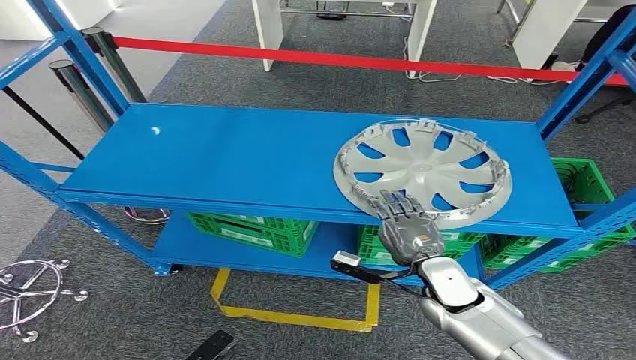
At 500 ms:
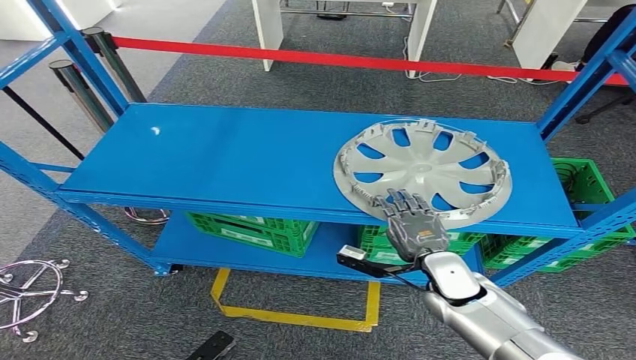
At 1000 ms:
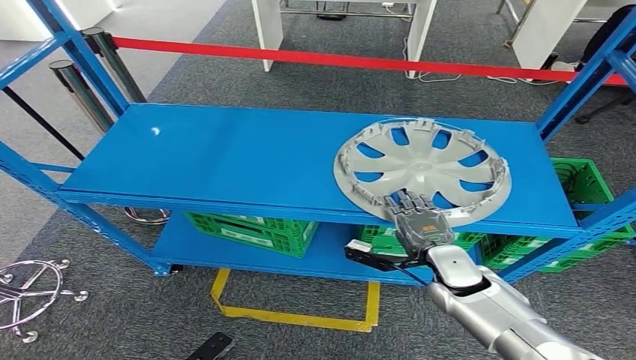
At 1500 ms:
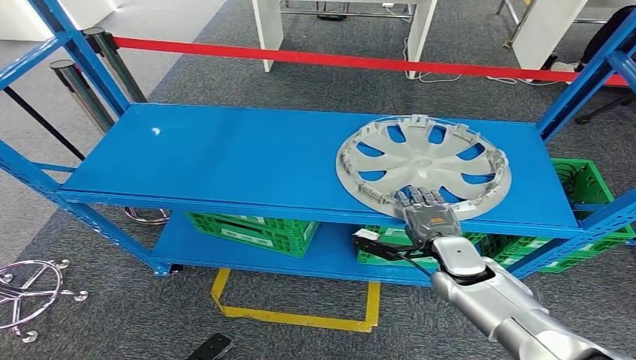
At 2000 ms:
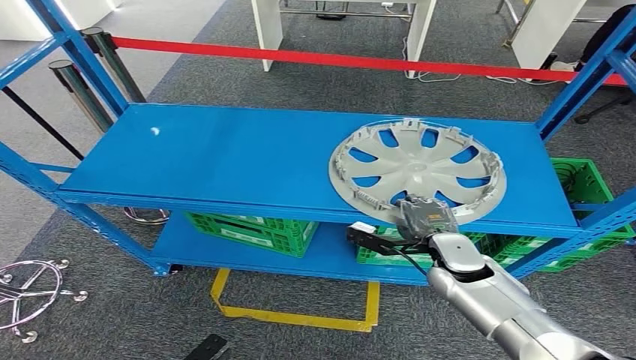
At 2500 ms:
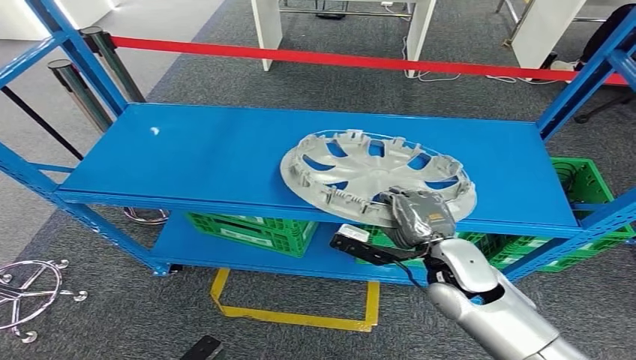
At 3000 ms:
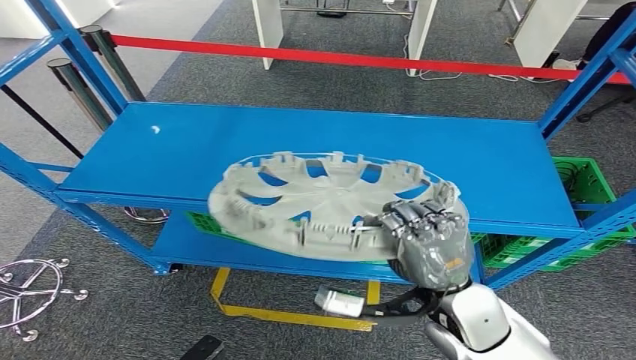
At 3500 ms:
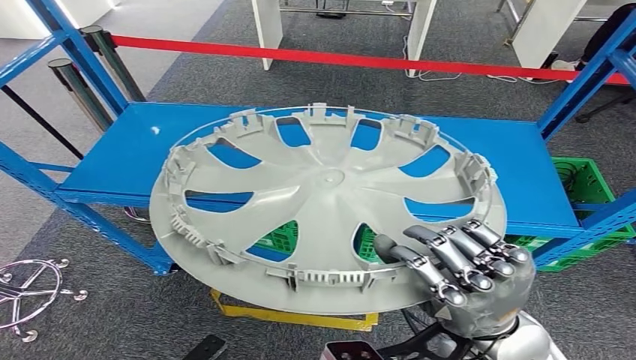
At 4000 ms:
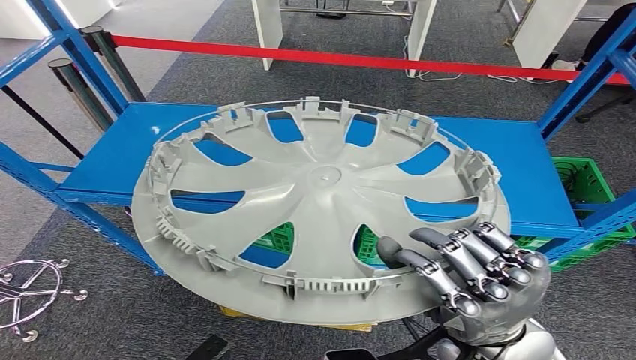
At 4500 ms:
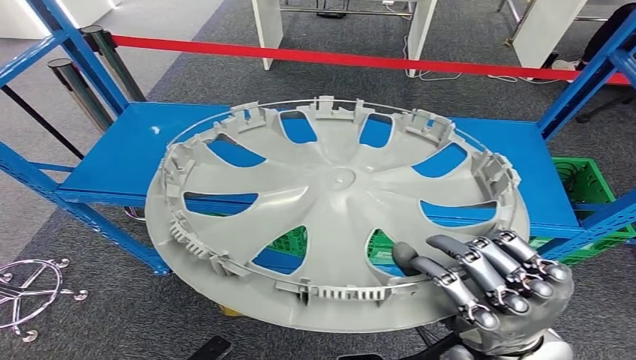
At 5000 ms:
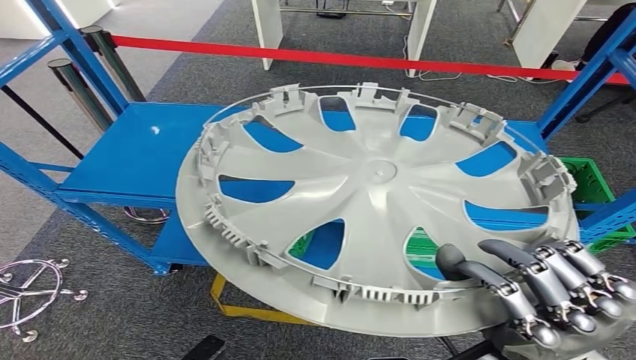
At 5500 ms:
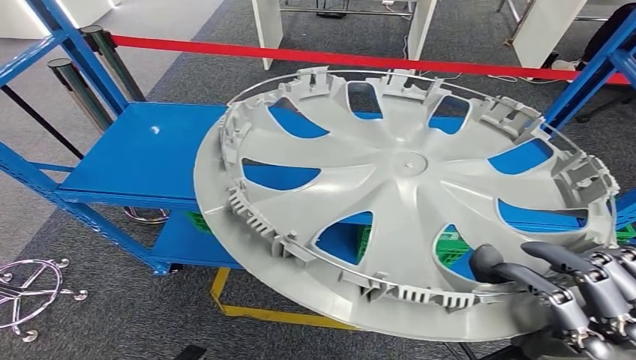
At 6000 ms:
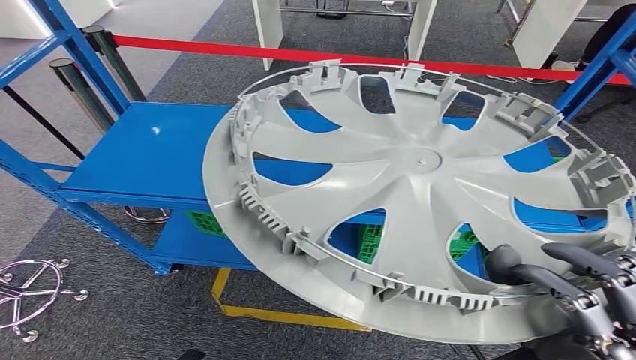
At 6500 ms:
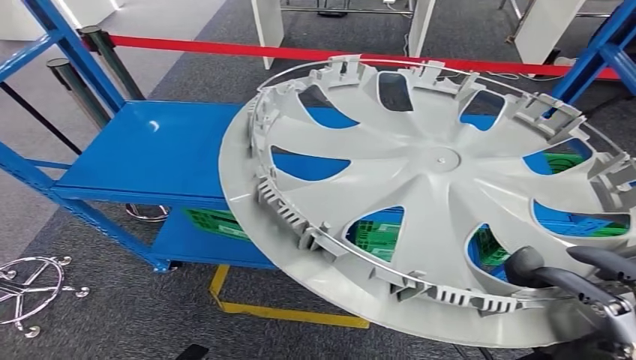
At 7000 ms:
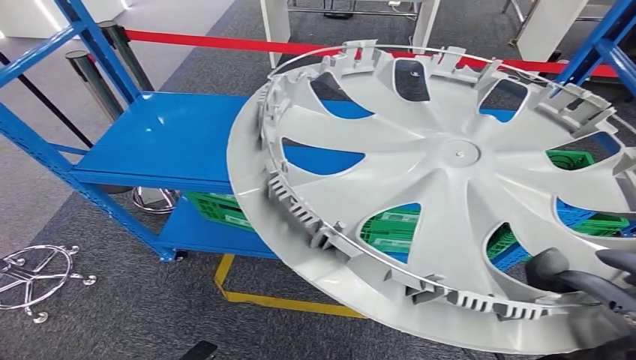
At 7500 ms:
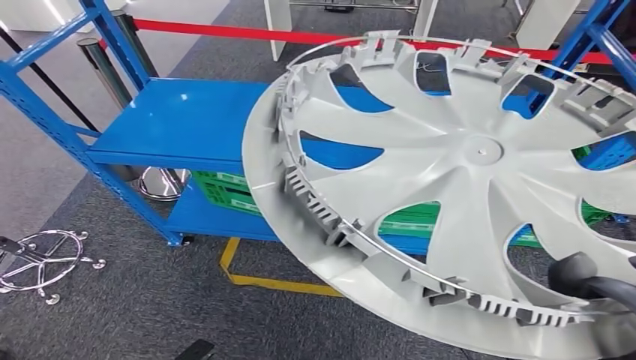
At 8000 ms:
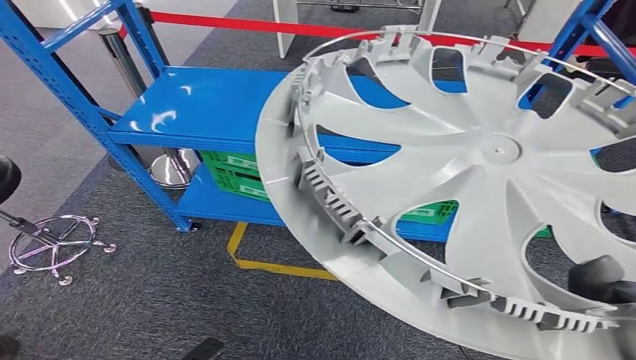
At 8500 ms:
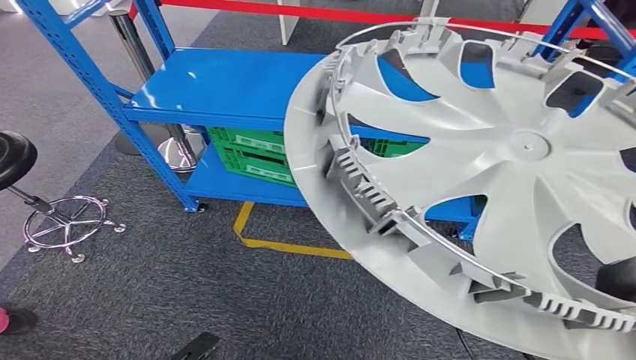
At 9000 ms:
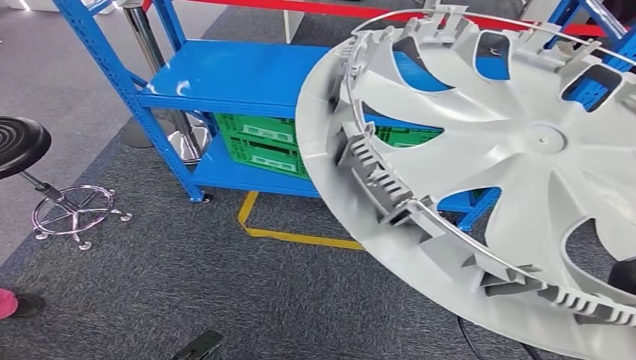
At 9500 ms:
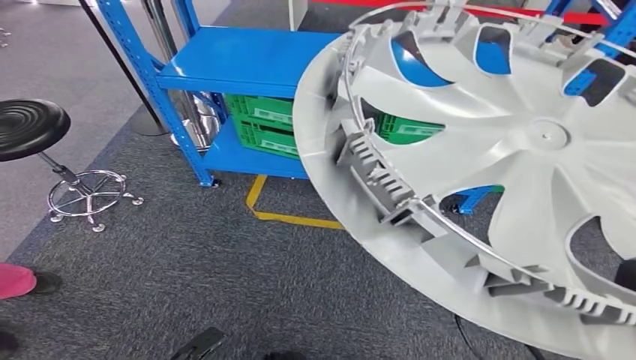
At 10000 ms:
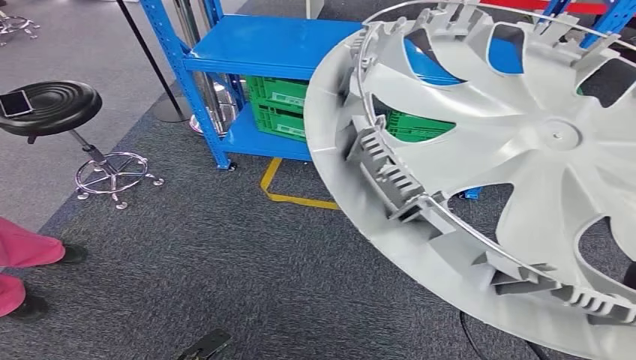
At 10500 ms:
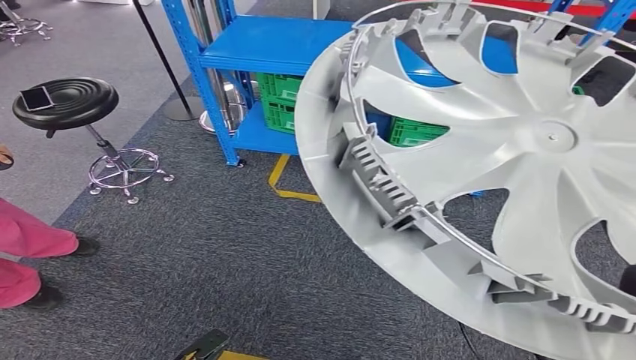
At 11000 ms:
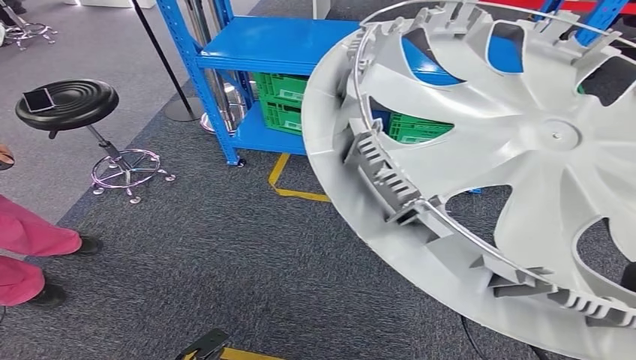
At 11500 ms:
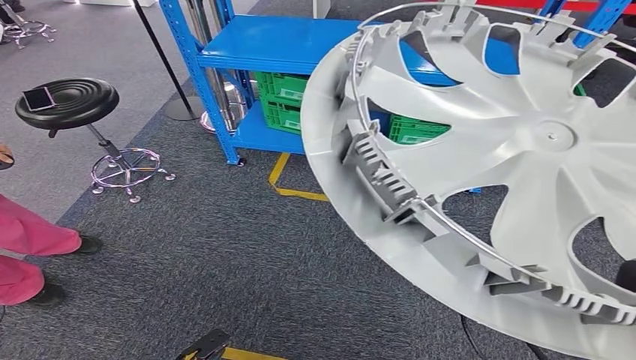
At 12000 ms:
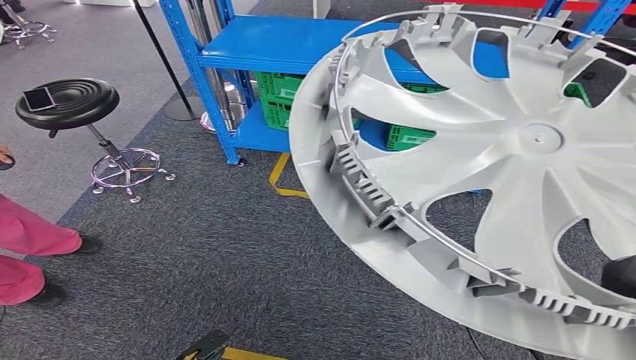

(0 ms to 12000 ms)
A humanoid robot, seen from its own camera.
Step, 0 ms - 5500 ms: Pick up the small component from the shelf.

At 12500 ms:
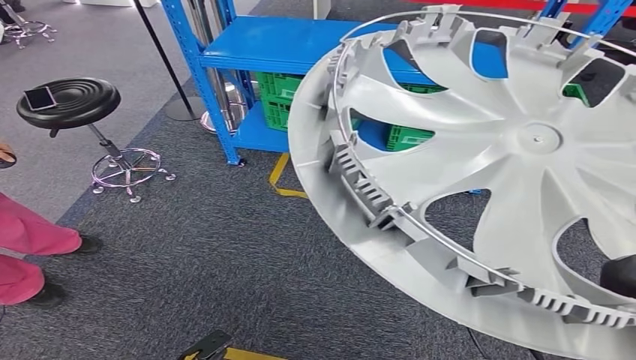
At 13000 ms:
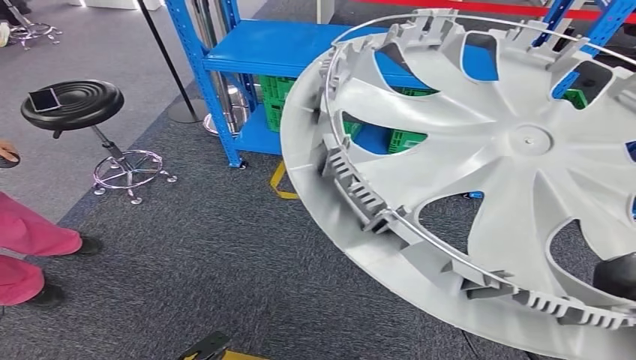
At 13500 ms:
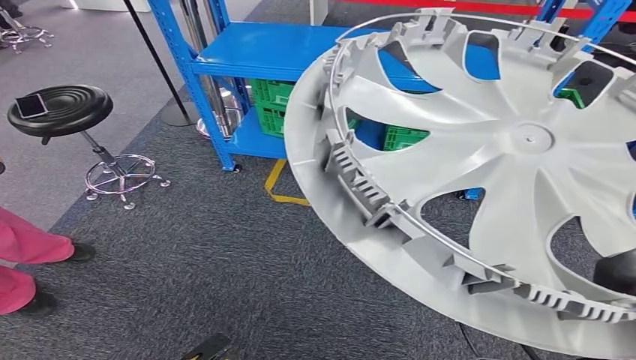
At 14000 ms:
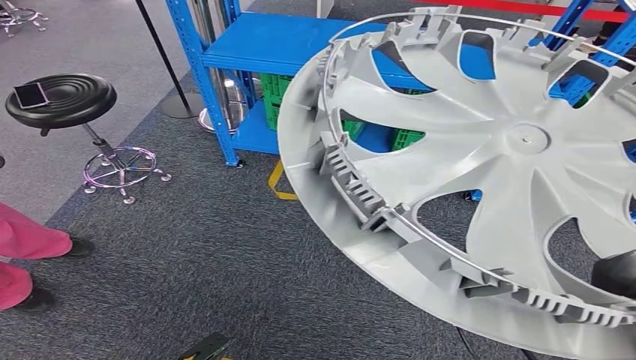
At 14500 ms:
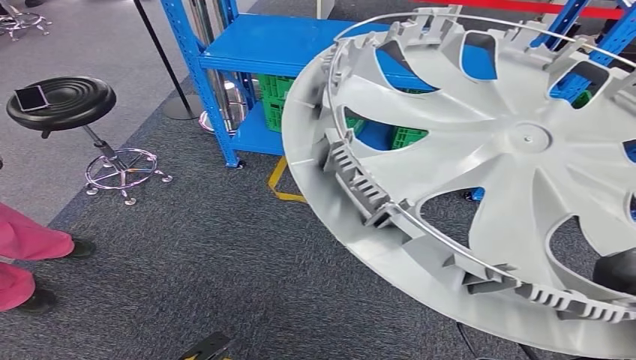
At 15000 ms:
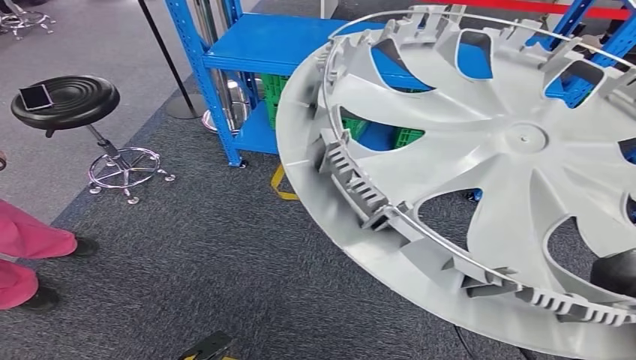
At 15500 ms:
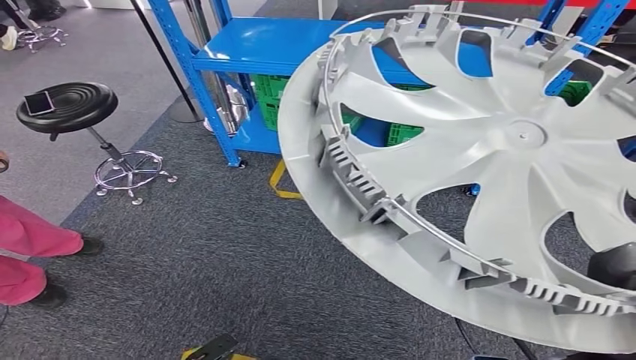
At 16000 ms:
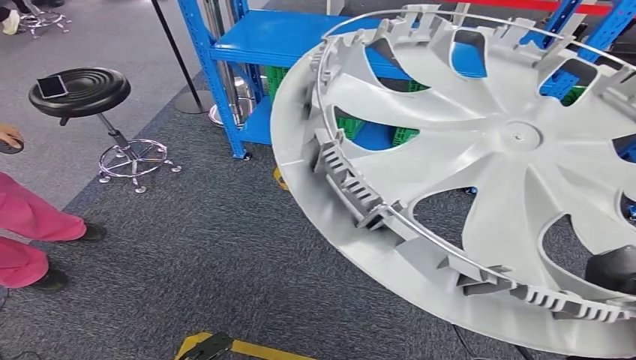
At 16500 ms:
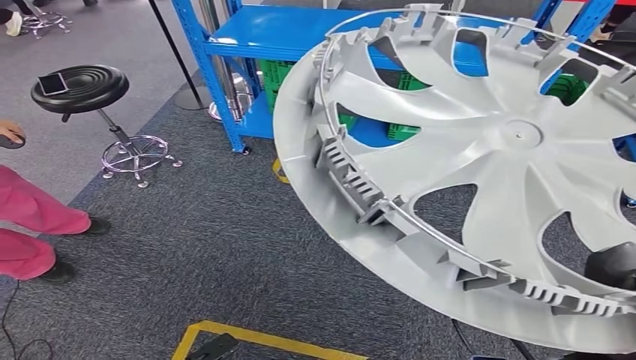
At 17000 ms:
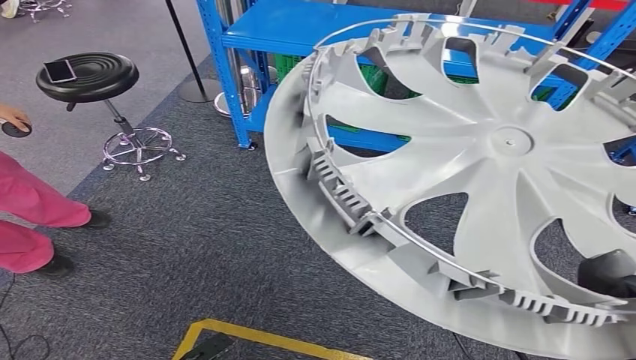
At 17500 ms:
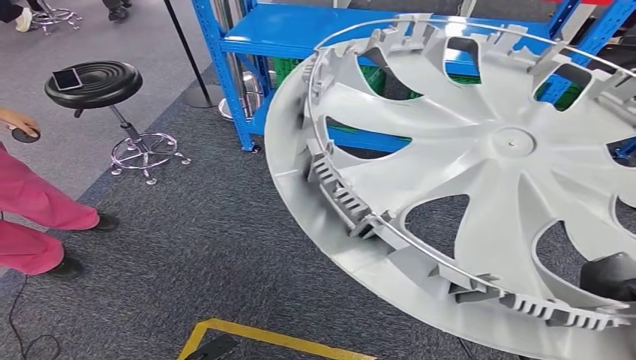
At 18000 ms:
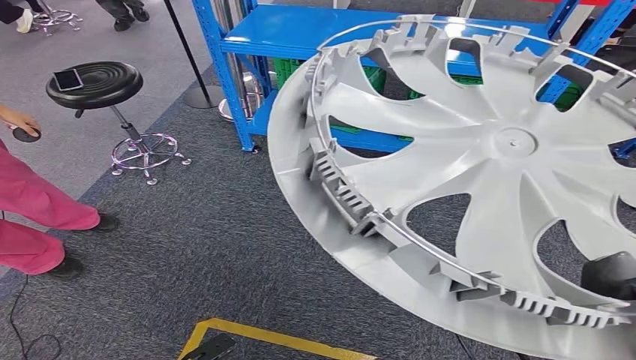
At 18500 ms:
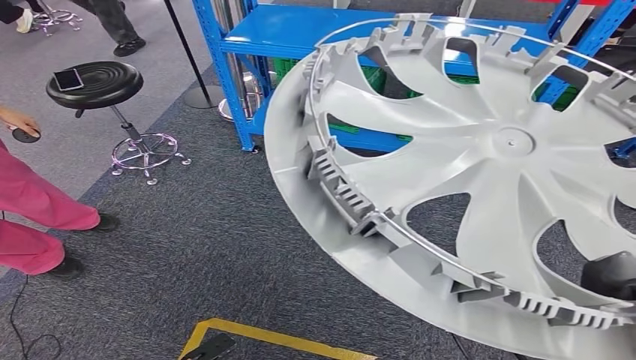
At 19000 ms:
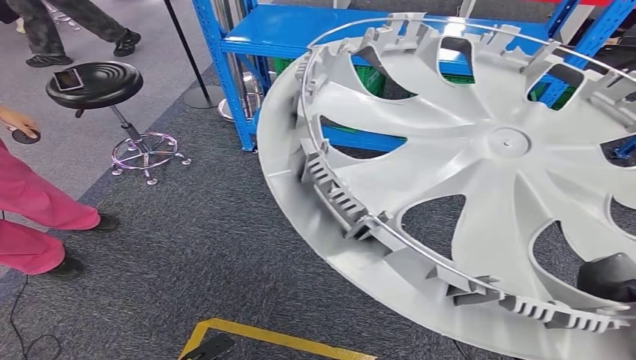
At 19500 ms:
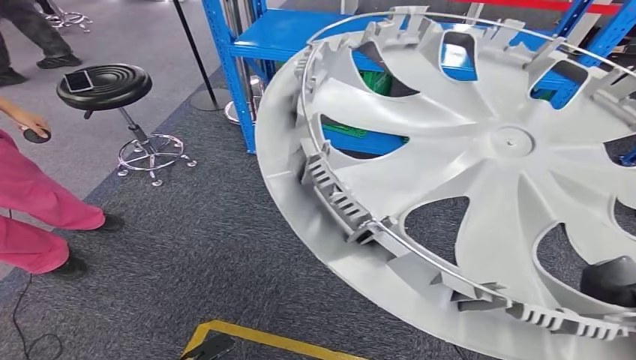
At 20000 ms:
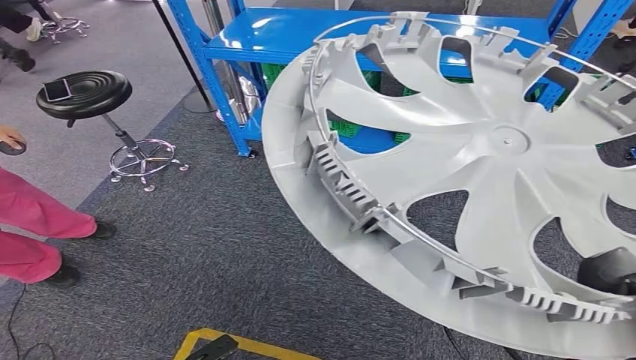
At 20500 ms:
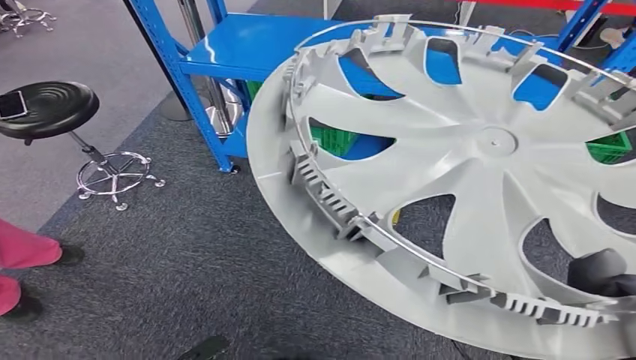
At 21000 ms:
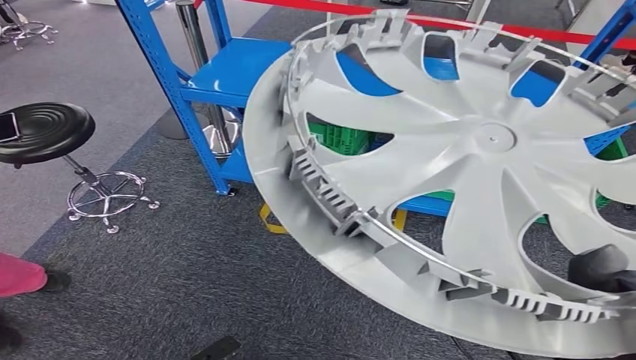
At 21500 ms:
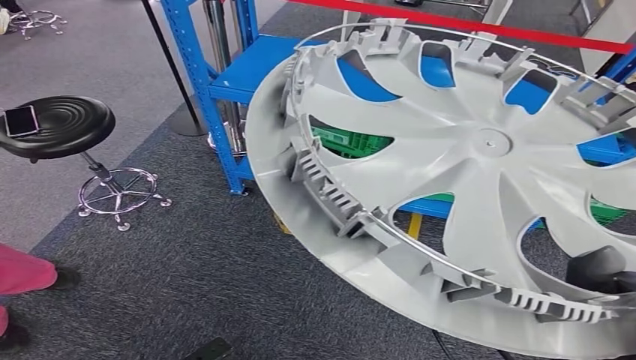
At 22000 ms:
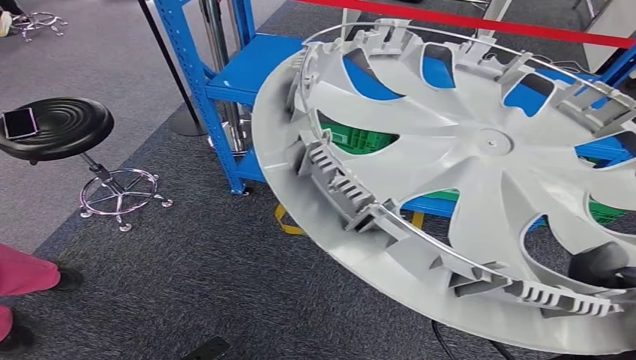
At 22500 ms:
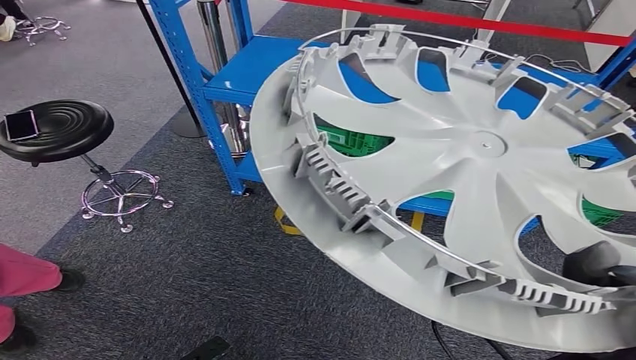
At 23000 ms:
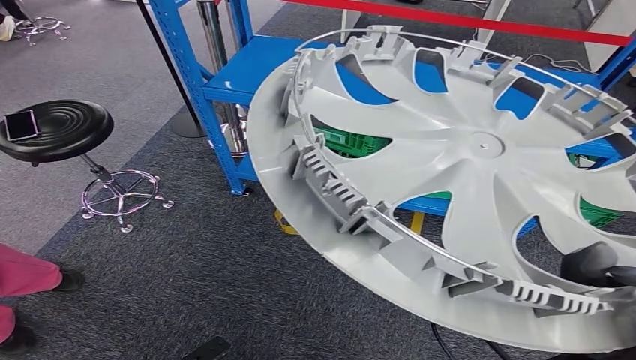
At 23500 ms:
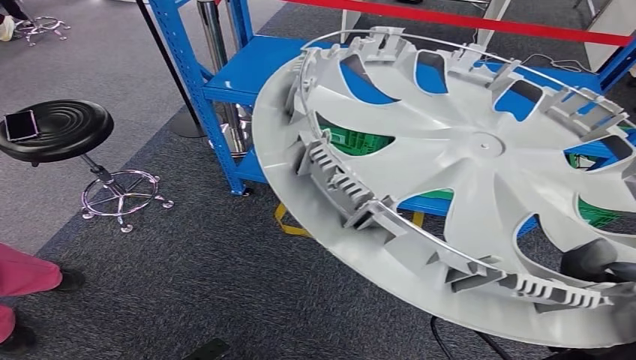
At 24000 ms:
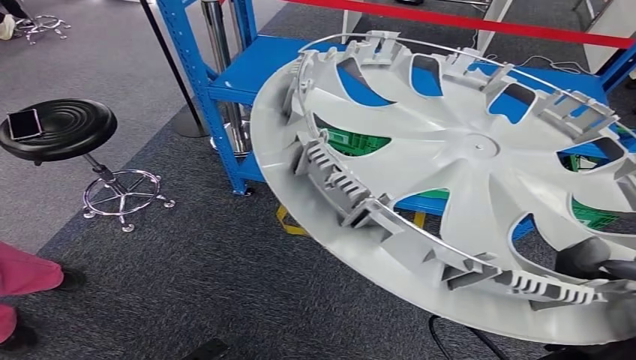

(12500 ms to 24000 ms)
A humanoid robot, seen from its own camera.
12500 ms - 14500 ms: Both hands stay put.
